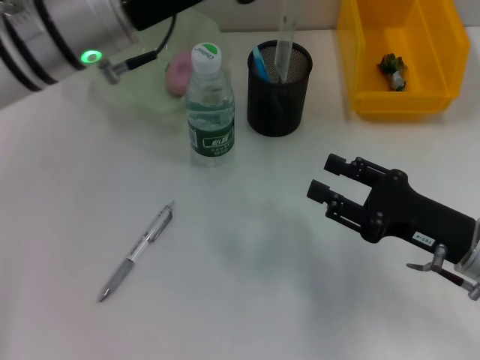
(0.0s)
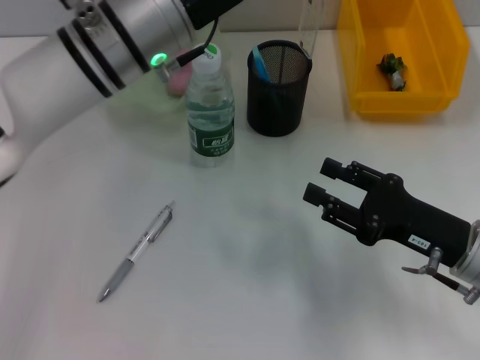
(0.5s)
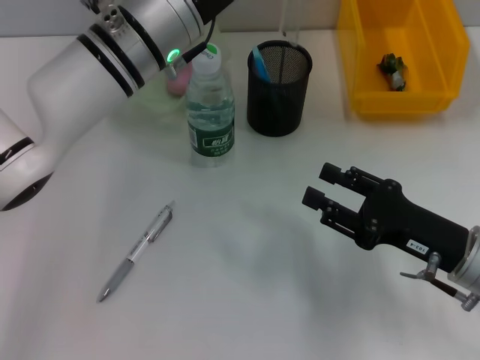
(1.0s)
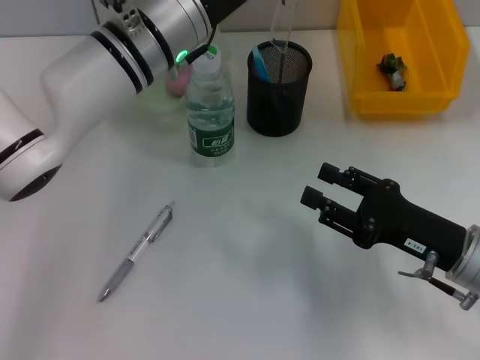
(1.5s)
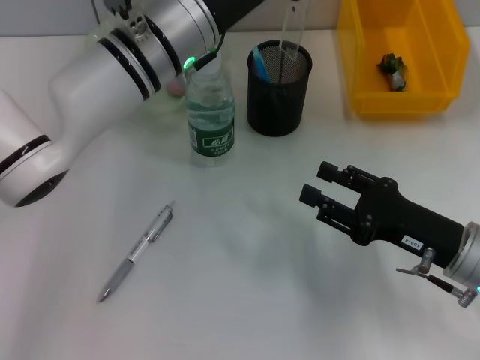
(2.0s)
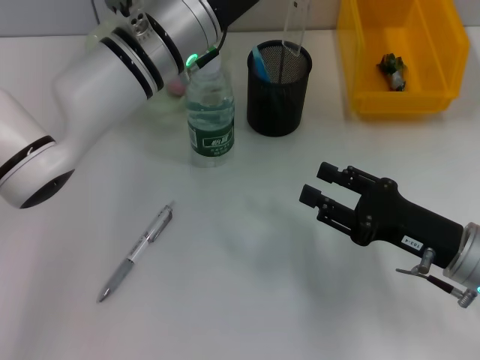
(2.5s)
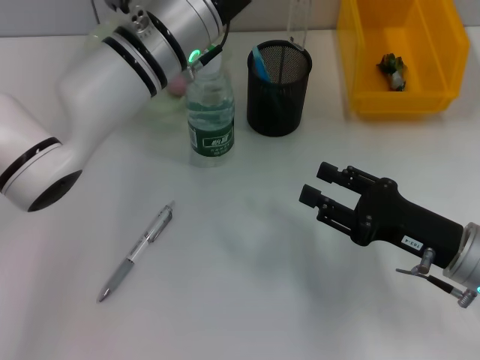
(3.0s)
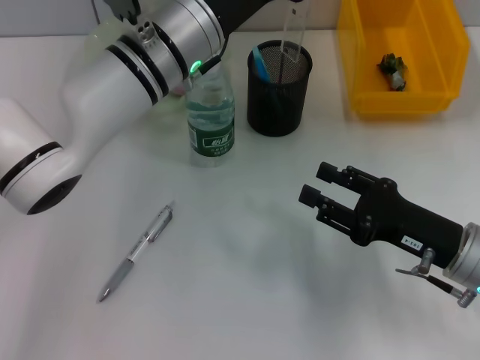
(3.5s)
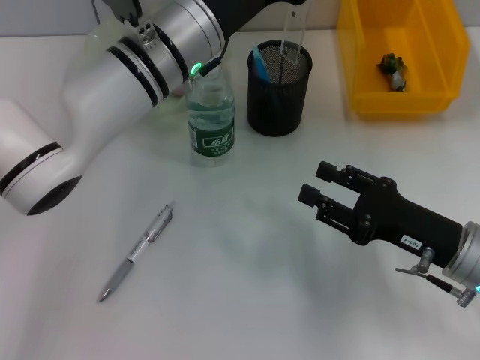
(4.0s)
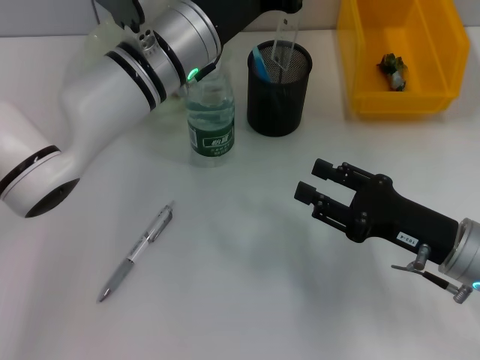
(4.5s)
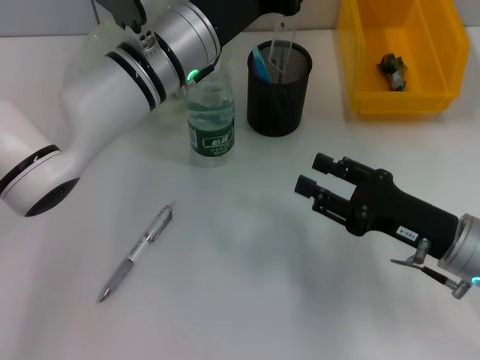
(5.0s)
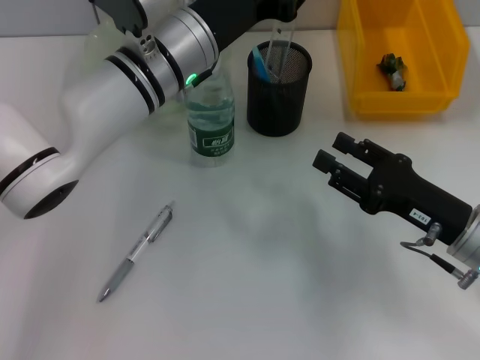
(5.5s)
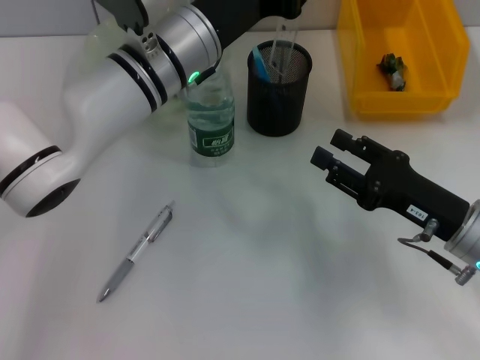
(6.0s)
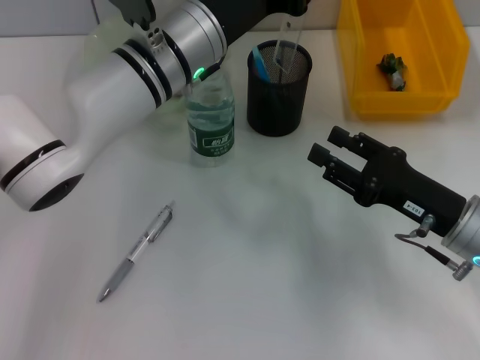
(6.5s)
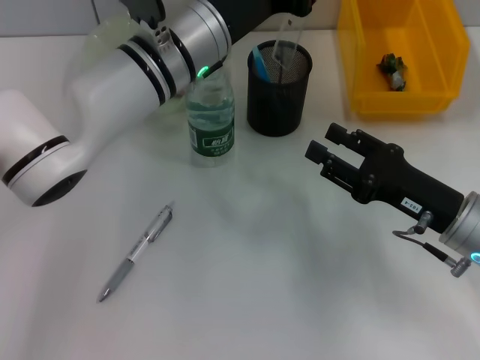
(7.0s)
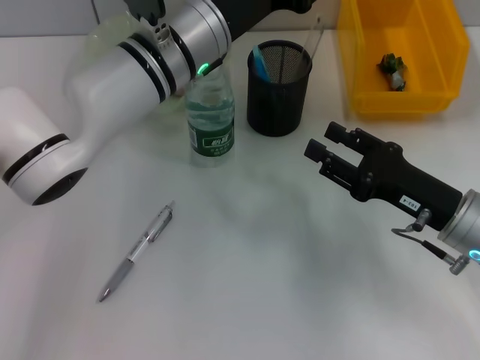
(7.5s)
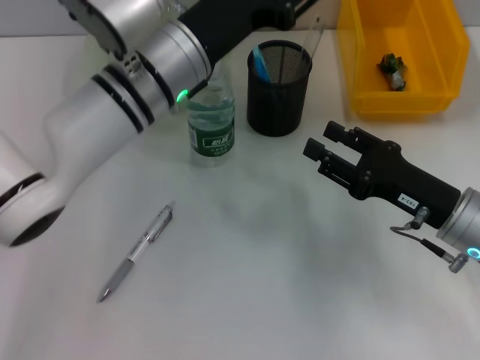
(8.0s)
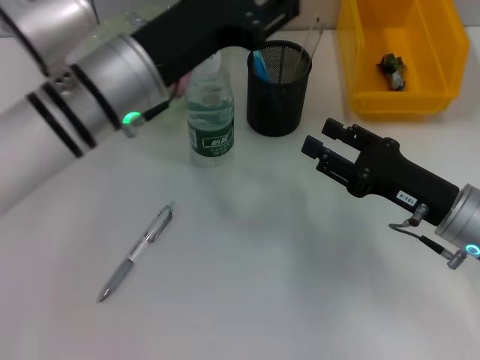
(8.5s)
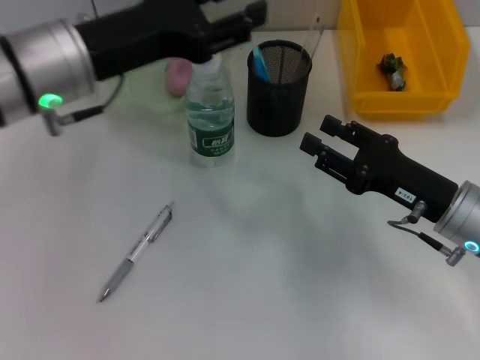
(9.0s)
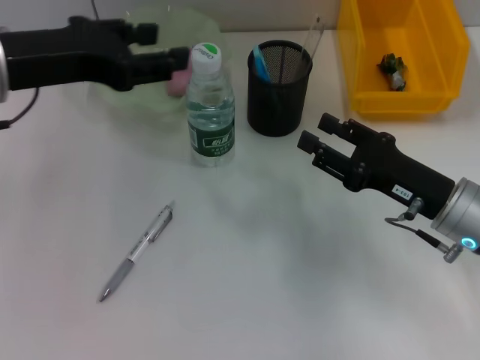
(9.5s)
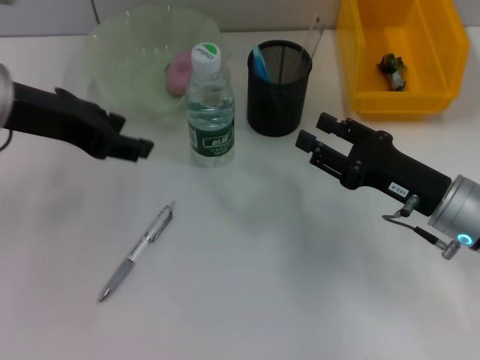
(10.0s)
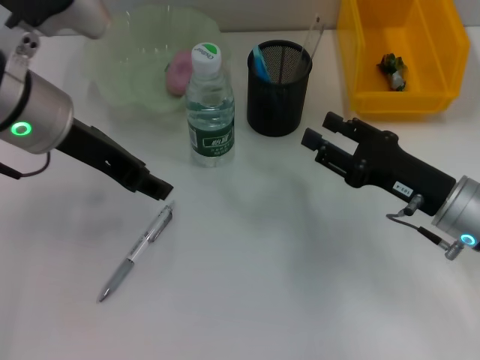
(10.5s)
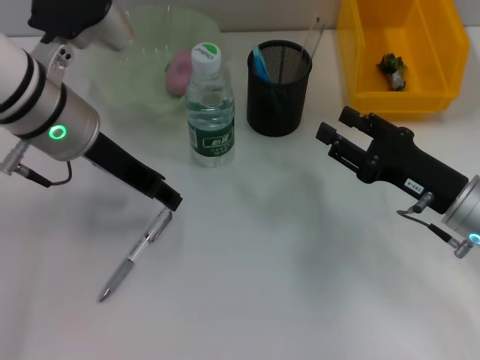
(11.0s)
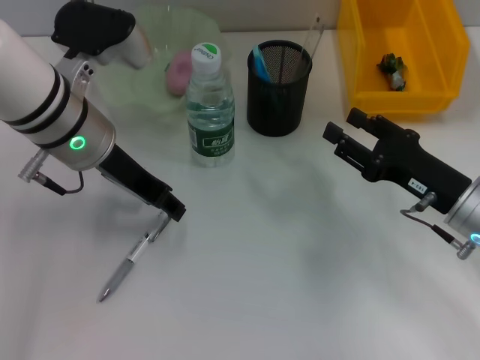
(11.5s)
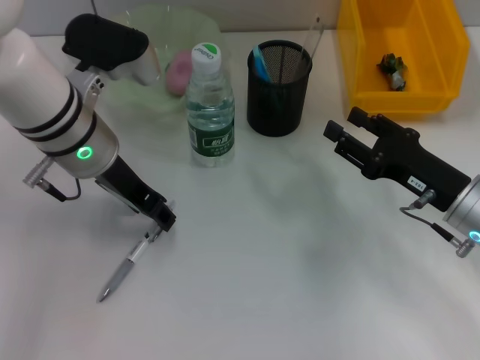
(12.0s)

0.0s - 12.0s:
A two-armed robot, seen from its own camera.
Step, 0.0s - 7.0s: Place the ruler into the pen holder with the left hand.
0.0s - 2.0s: The left gripper goes approximately 5 cm to the right.
2.0s - 6.0s: The grippers move only a little.
6.0s - 8.0s: The left gripper opens its fingers.
8.0s - 10.0s: The left gripper shifts some 15 cm to the left and upward.
10.0s - 12.0s: The left gripper moves downward and to the right, approximately 10 cm.

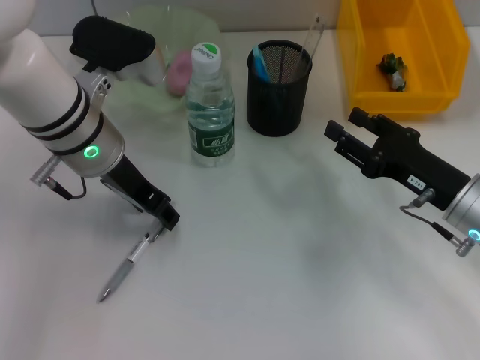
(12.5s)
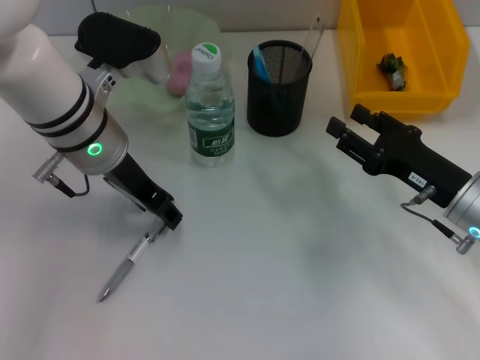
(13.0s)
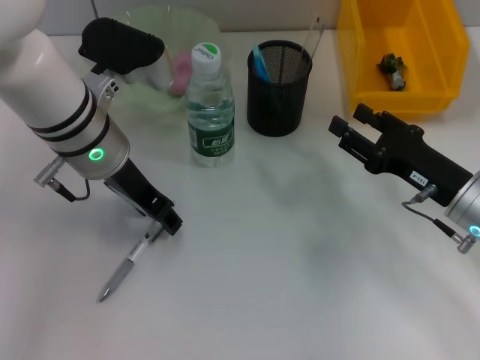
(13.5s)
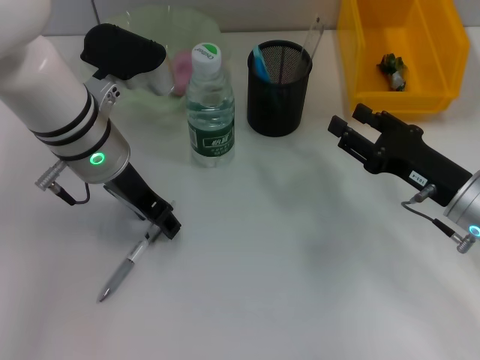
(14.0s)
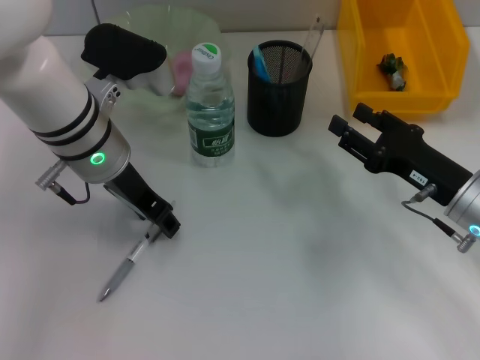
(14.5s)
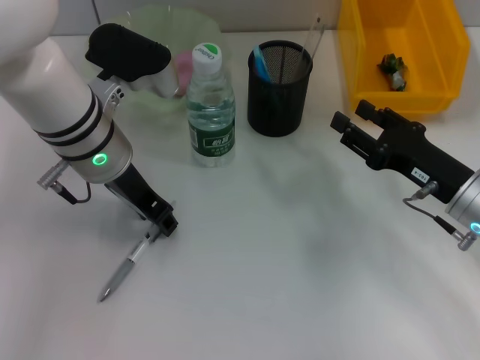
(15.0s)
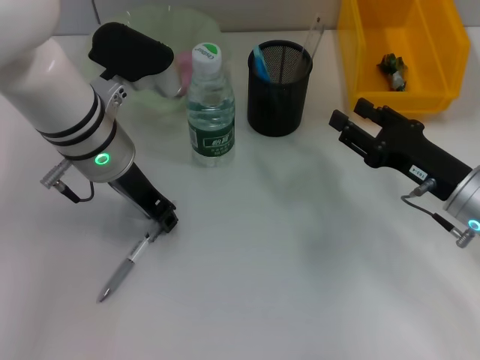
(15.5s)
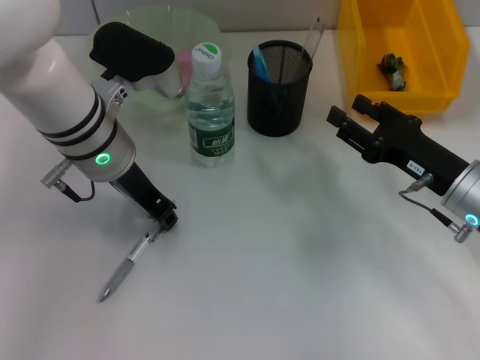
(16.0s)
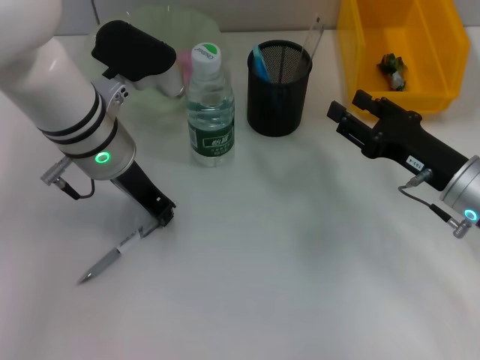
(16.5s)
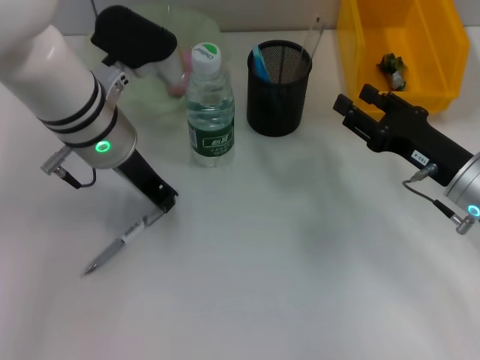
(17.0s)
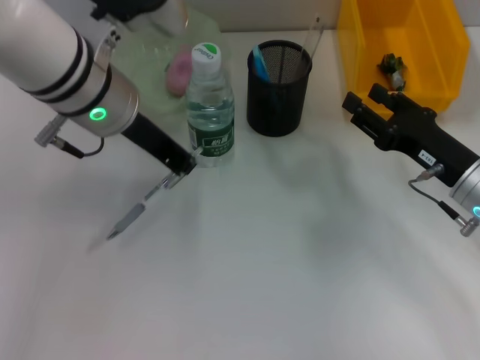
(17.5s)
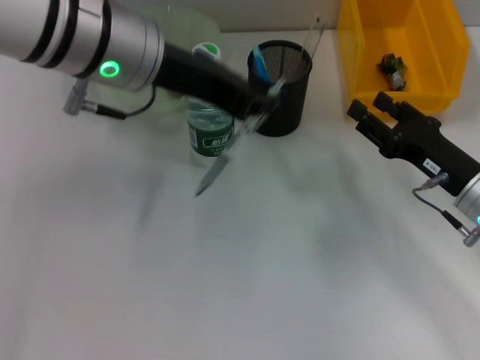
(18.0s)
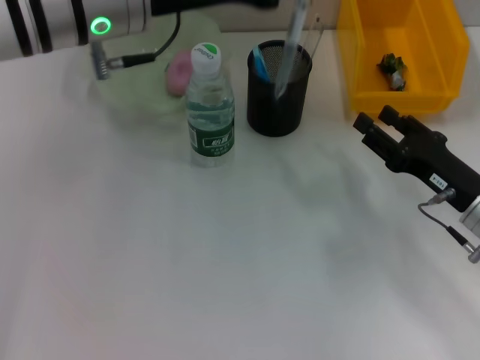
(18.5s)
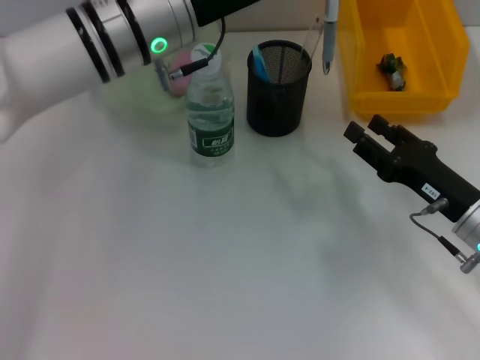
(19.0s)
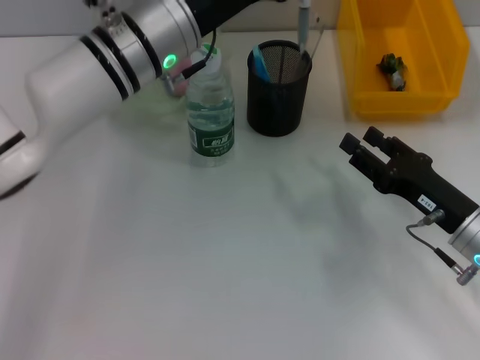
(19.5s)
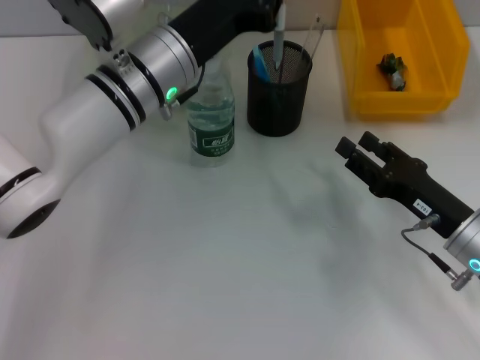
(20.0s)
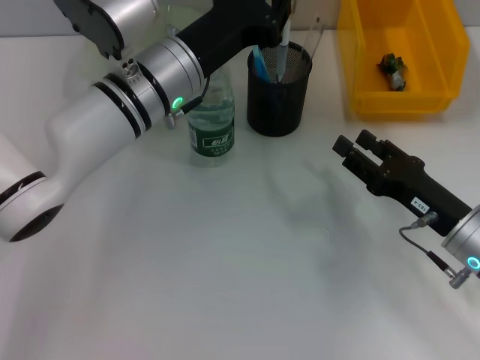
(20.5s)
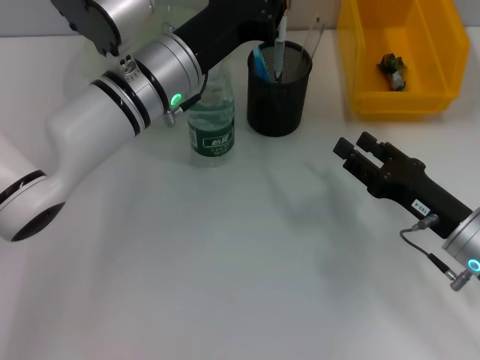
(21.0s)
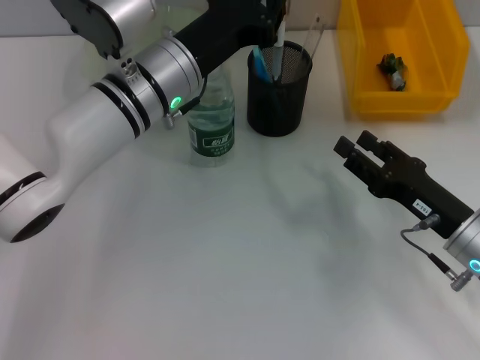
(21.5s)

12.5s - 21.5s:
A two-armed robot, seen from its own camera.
Step, 12.5s - 16.0s: Grab the gray spring-action pen with the left hand.
12.5s - 14.5s: Both grippers stay put.
14.5s - 17.0s: The left gripper closes up.
17.0s - 19.5s: The right gripper moves about 5 cm. The left gripper goes upward and returns, about 10 cm each way.
19.5s - 21.5s: The grippers make only small movements.

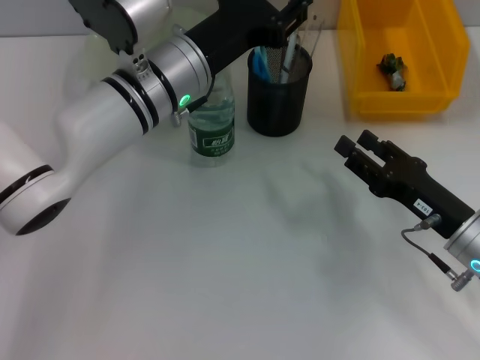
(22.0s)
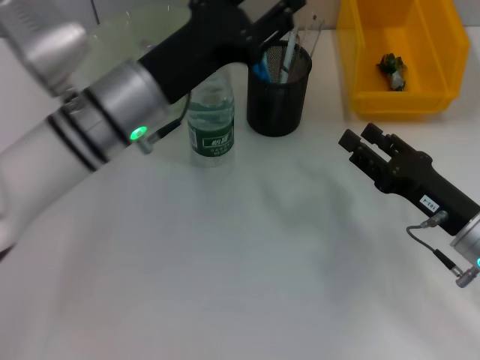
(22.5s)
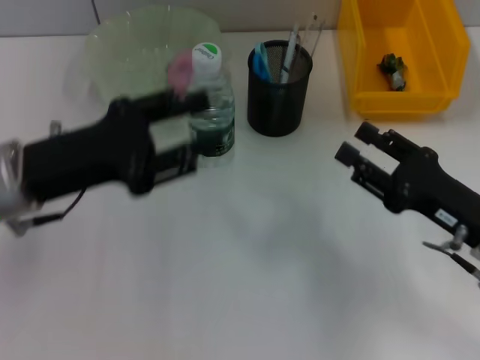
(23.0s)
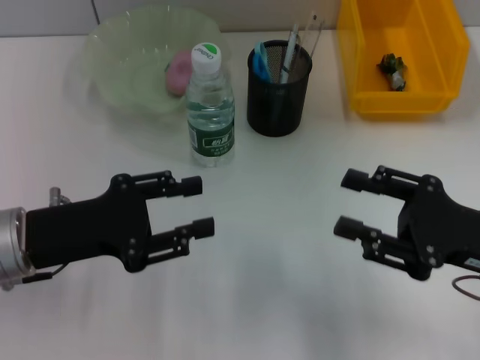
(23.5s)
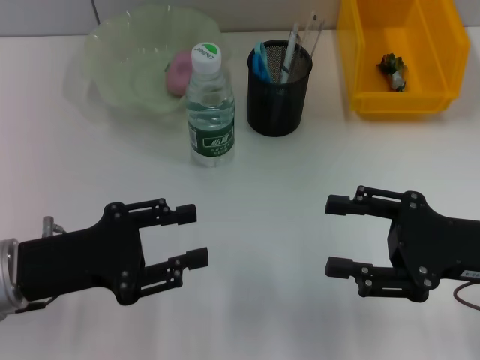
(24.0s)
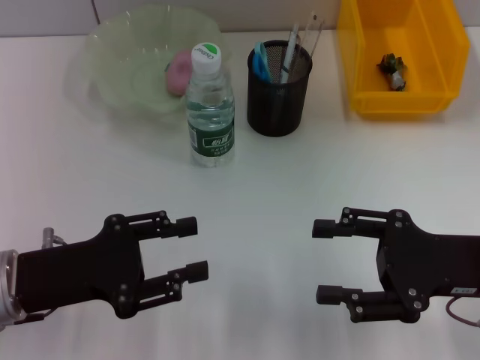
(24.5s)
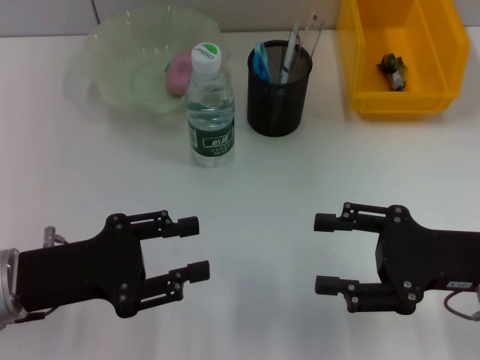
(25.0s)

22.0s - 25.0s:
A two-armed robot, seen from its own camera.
22.0s - 23.5s: The right gripper travels upward by approximately 5 cm, while the left gripper travels to the left and backward by roughly 20 cm, and opens its fingers.
23.5s - 25.0s: The grippers move only a little.

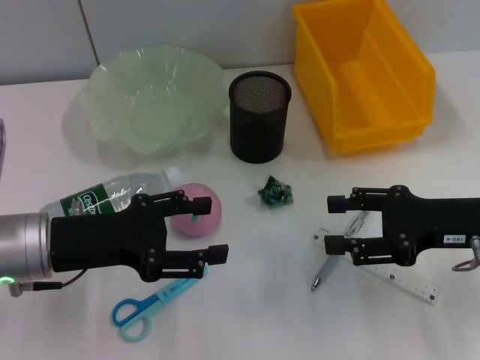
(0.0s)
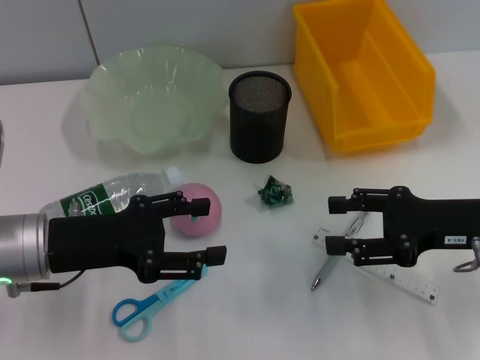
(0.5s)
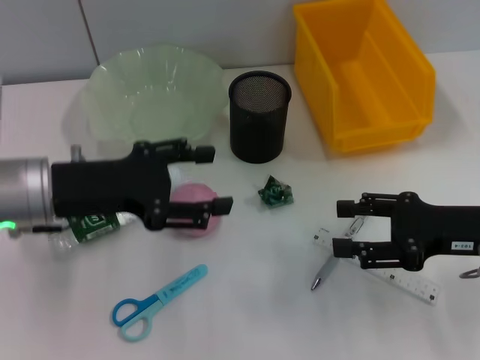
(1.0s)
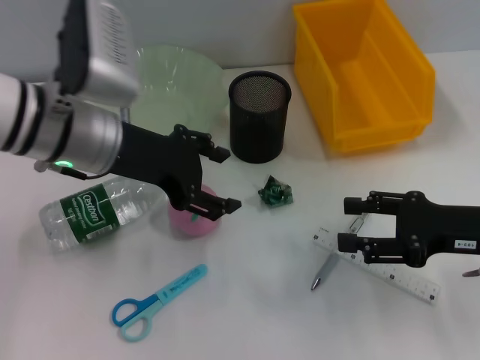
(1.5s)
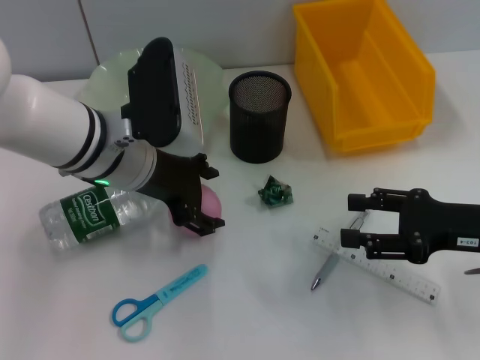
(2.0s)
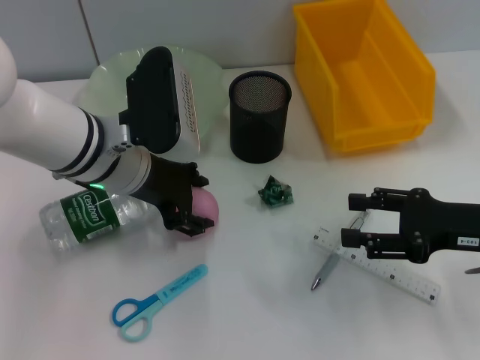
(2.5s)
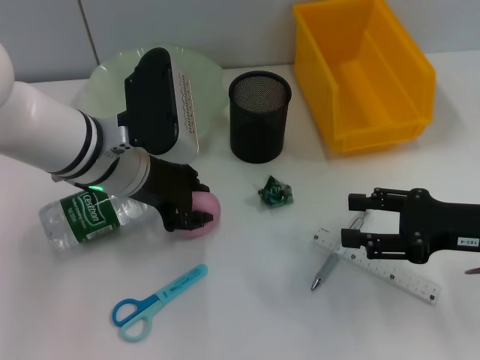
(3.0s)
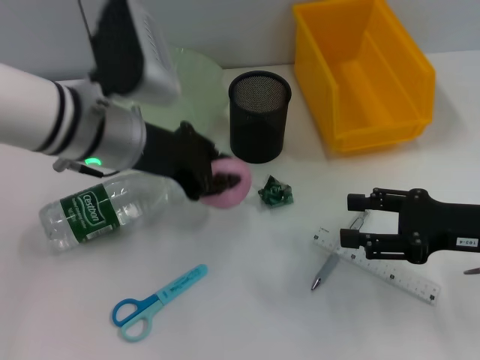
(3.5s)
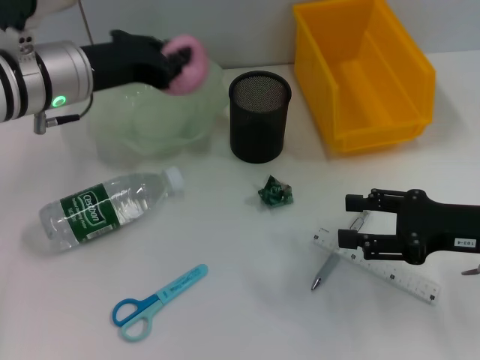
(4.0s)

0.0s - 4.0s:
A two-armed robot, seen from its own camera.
Step, 0.0s - 2.5s: Grab the peach with the left hand.
0.0s - 2.0s: The left gripper goes approximately 15 cm to the right and forward.
2.0s - 4.0s: The left gripper travels to the left by some 5 cm, and closes up.
